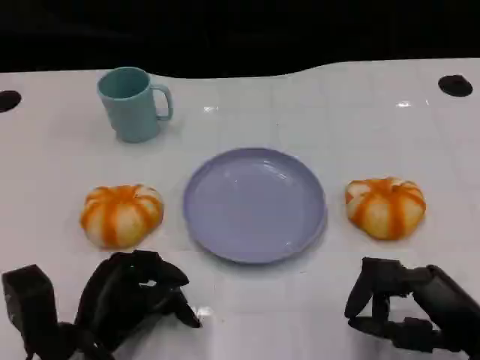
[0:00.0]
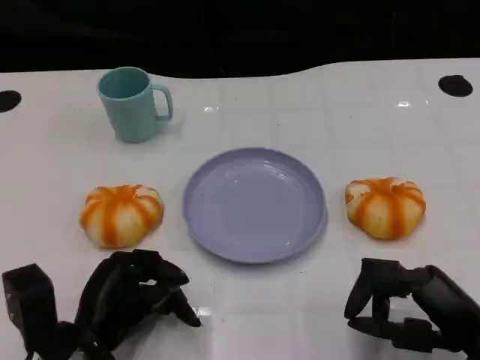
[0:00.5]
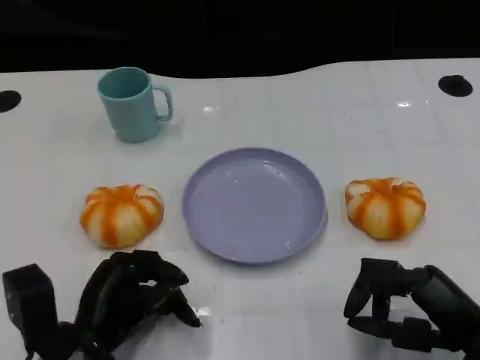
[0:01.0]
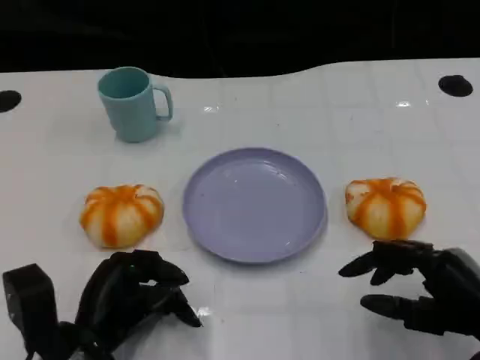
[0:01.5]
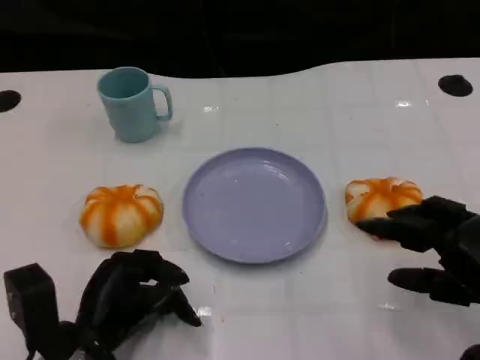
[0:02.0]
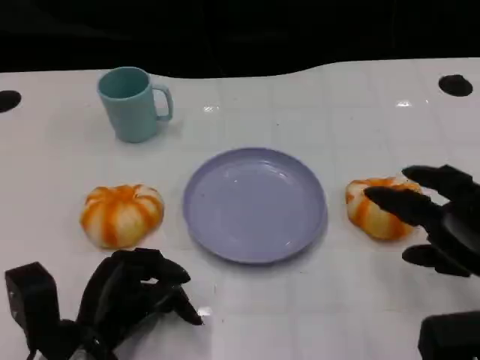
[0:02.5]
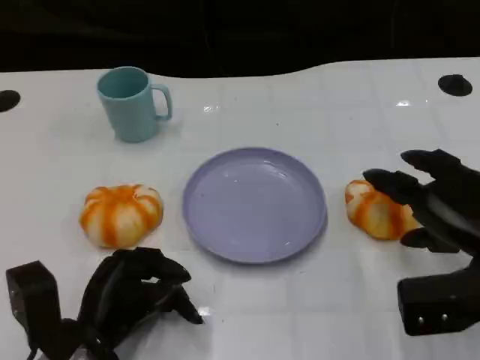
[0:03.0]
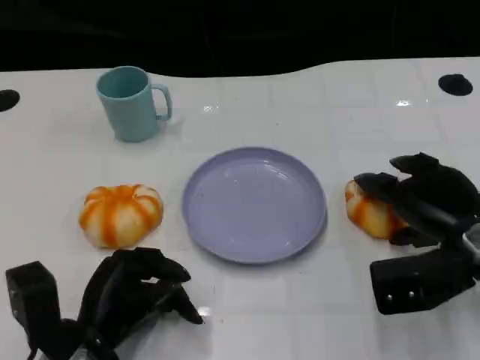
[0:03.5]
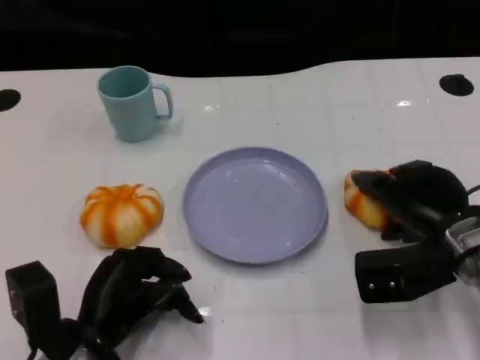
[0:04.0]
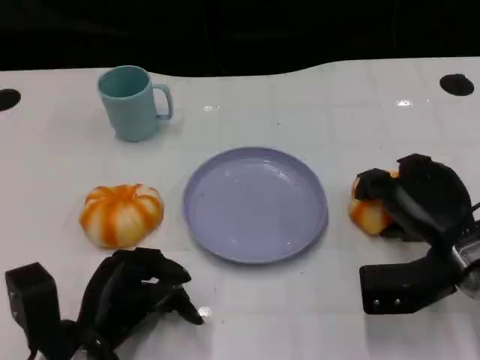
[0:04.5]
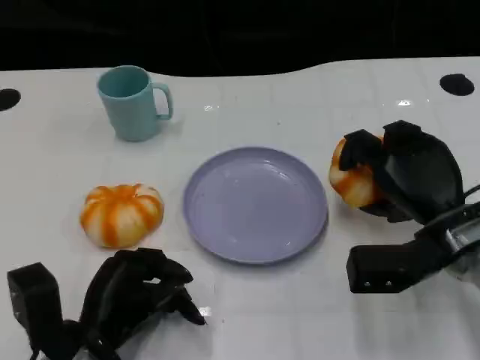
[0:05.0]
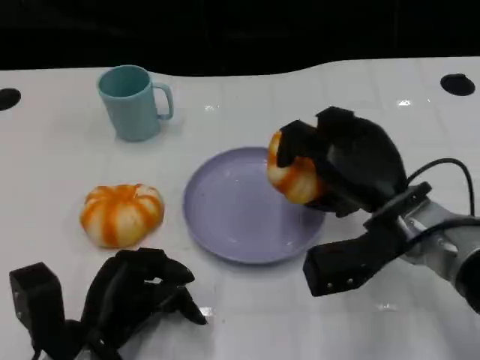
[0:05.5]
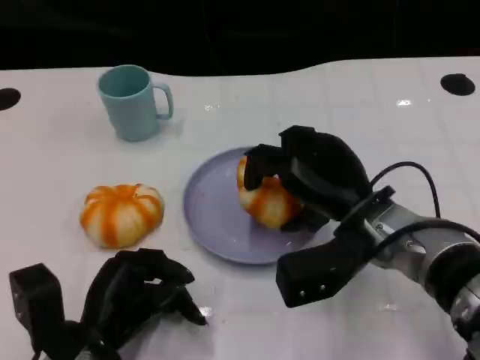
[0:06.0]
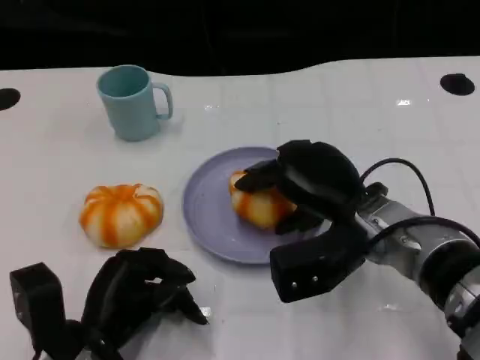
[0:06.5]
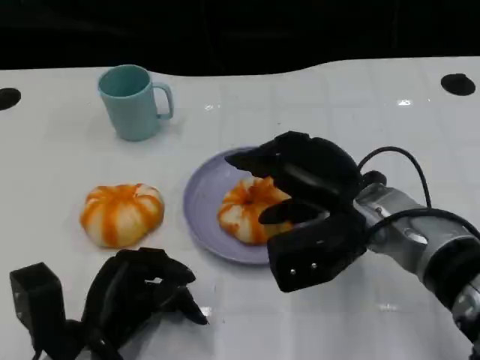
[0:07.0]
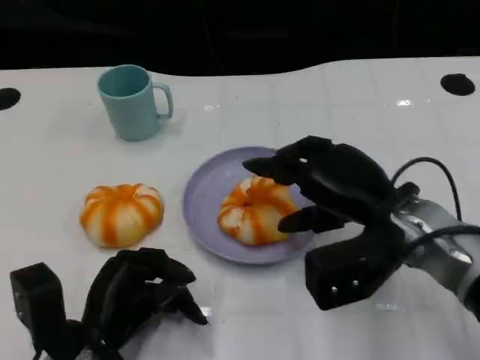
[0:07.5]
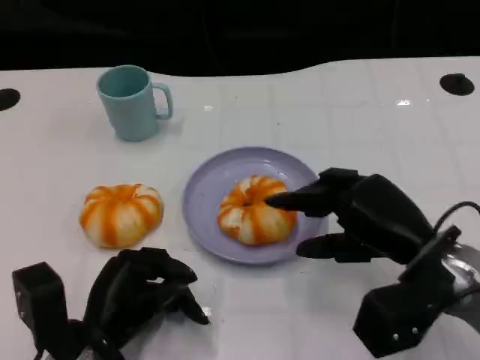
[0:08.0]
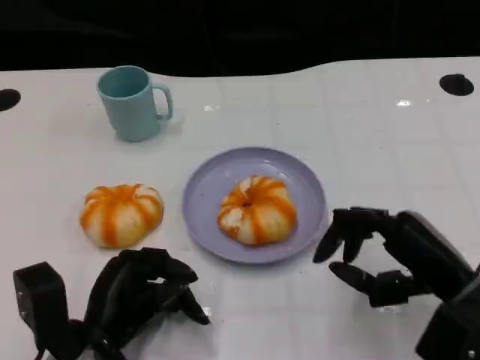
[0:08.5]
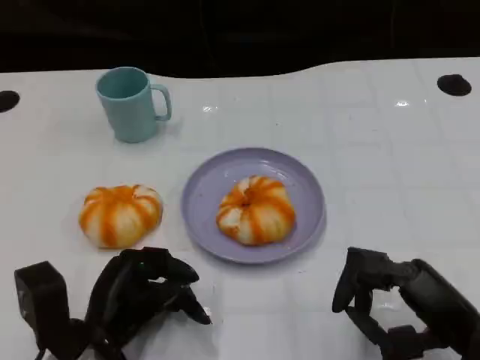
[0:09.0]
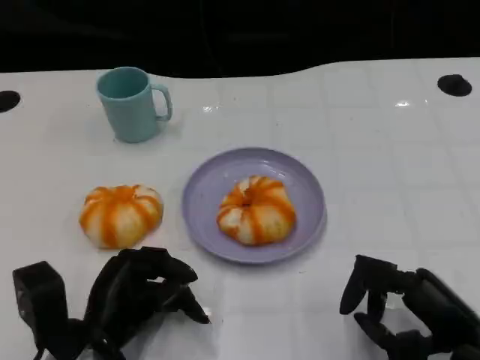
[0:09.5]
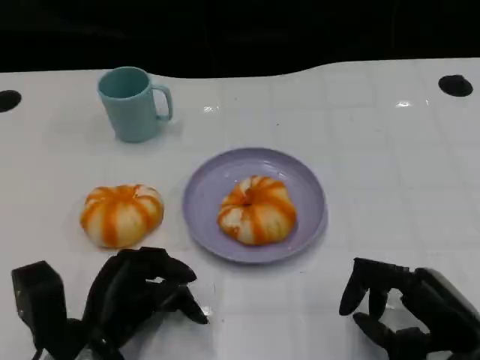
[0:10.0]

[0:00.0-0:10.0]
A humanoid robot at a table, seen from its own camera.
Task of the whole recording: Grasp the bread from the table and place it into the plate.
0:00.0 to 0:02.0: The right hand moves roughly 5 cm.
0:02.0 to 0:04.0: The right hand moves forward and to the left, some 10 cm.
0:04.0 to 0:06.0: The right hand goes about 10 cm to the left.
0:06.0 to 0:08.0: The right hand travels to the right by some 5 cm.
0:08.0 to 0:10.0: The right hand is displaced backward by roughly 5 cm.

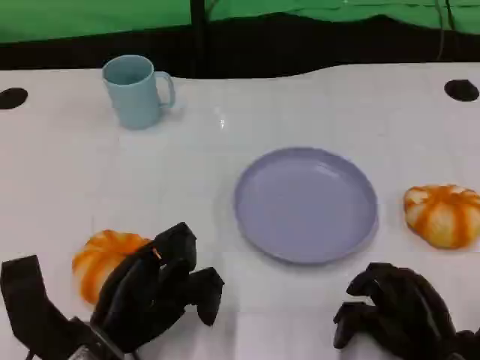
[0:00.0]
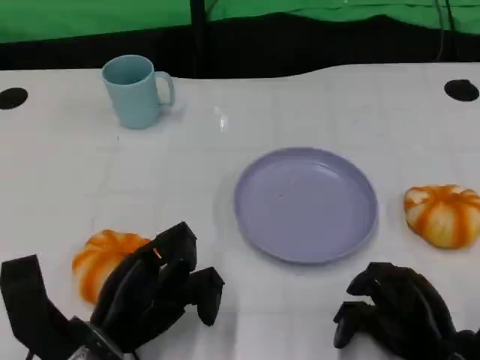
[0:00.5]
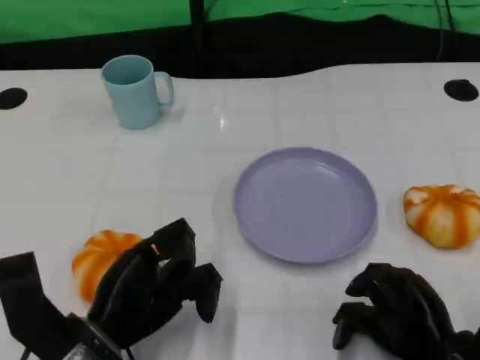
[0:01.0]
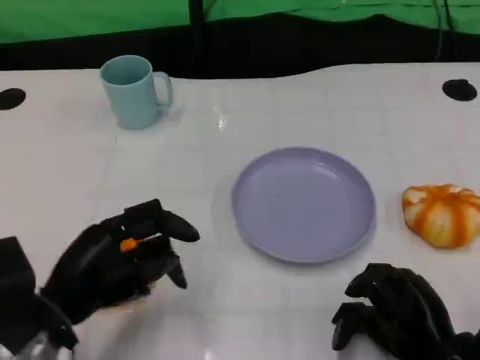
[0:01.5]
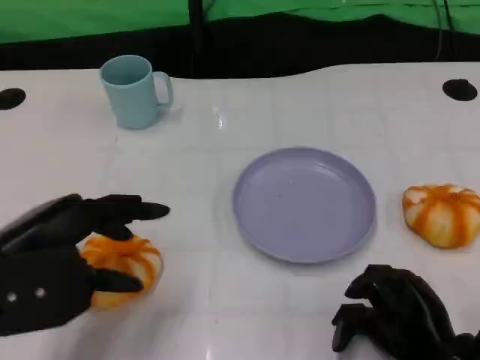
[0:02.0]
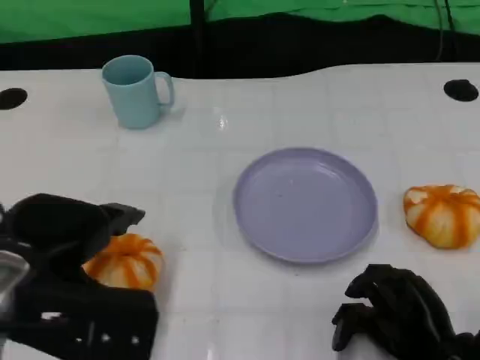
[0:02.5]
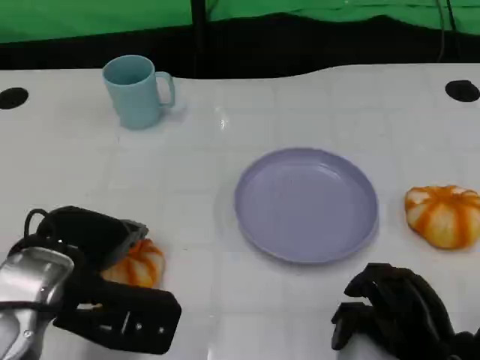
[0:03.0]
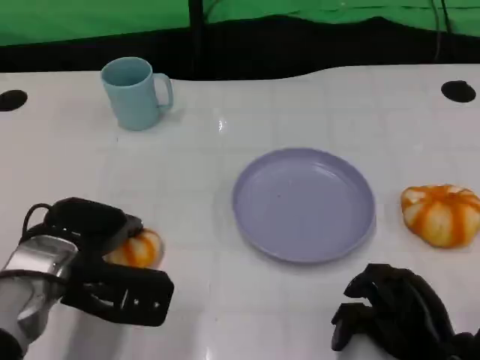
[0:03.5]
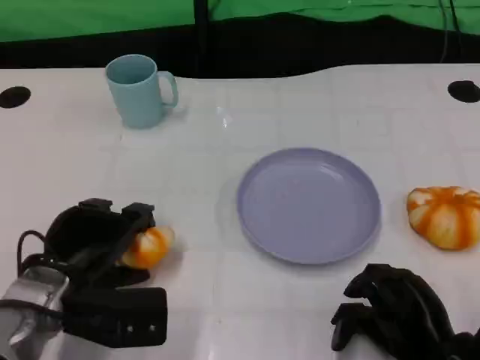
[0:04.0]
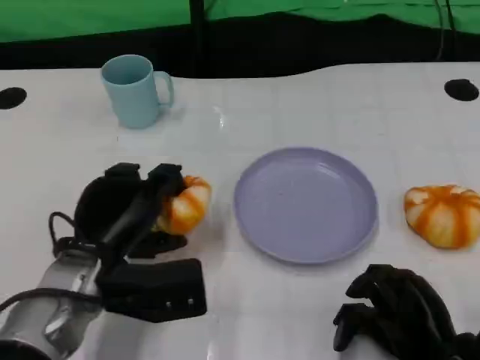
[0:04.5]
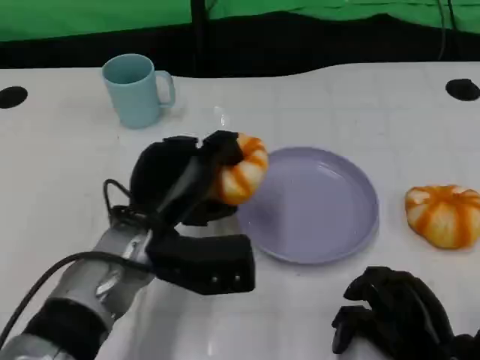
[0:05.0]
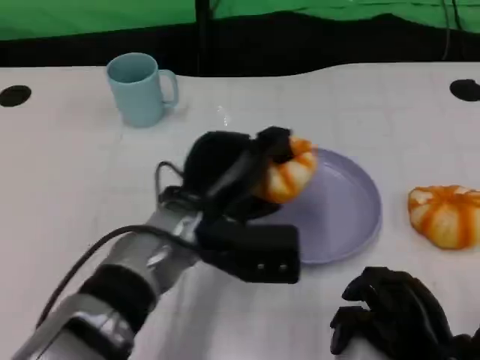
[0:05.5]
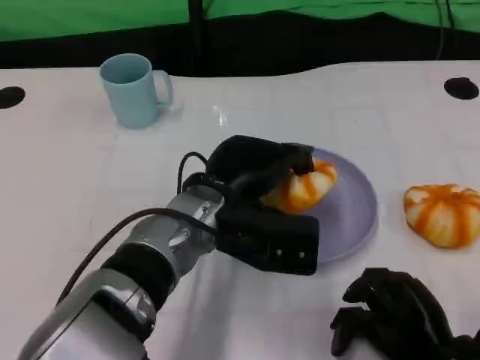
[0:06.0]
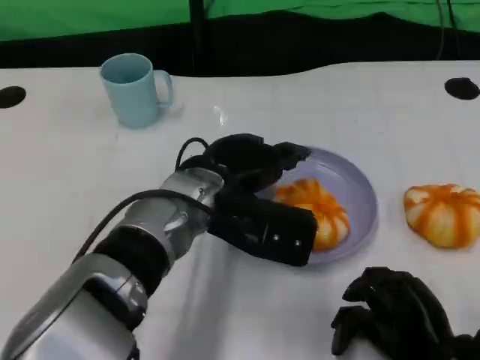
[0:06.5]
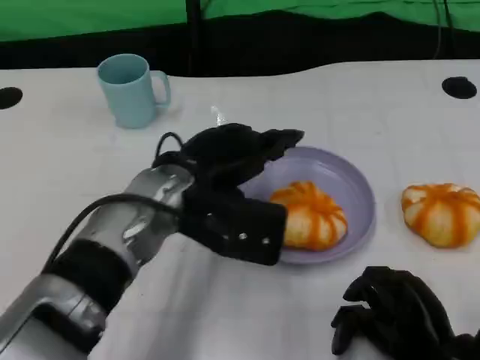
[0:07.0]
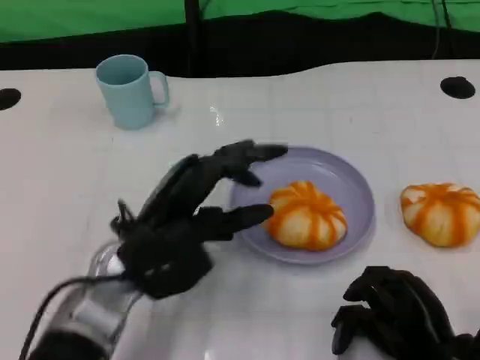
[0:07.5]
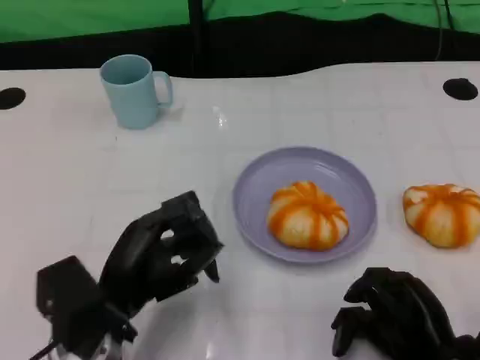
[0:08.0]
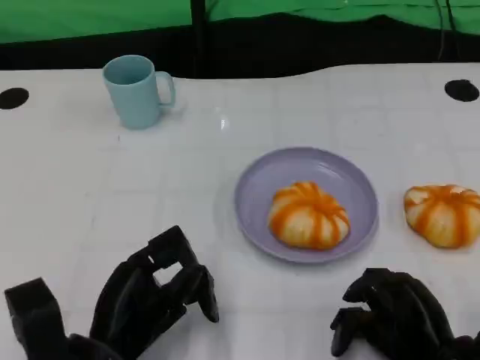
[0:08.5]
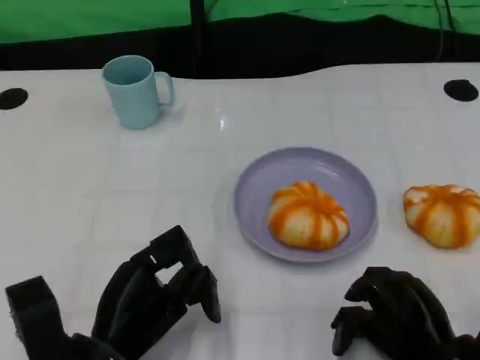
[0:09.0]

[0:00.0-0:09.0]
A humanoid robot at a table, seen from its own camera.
Task of the whole recording: Grasp the bread from the table and place it into the plate.
0:00.0 to 0:02.0: The left hand moves upward and to the left, some 15 cm.
0:02.0 to 0:04.5: The left hand moves downward, to the right and forward, roughly 15 cm.
0:04.5 to 0:07.0: The left hand travels to the right and upward by about 10 cm.
0:07.0 to 0:09.0: The left hand moves backward, downward and to the left, roughly 15 cm.

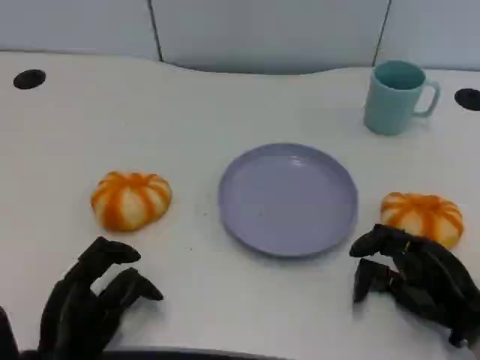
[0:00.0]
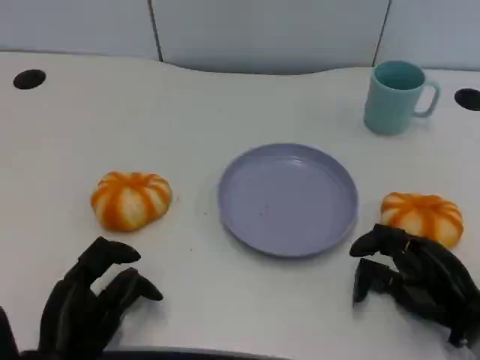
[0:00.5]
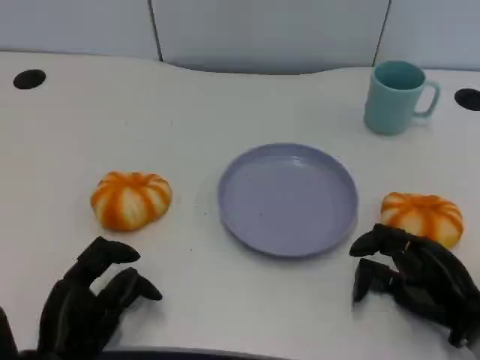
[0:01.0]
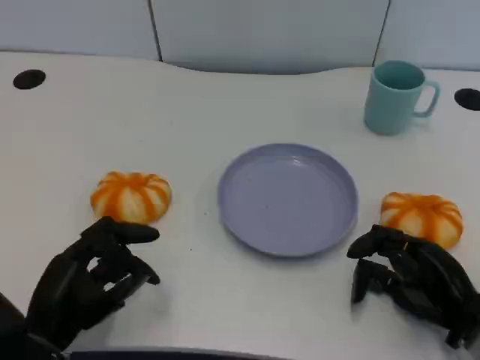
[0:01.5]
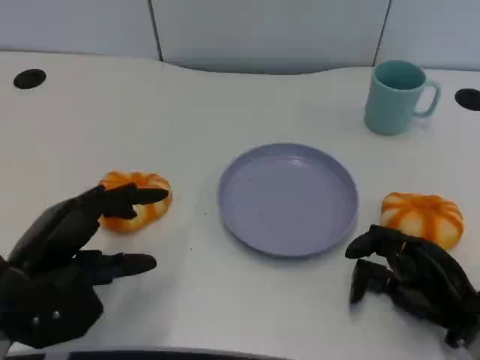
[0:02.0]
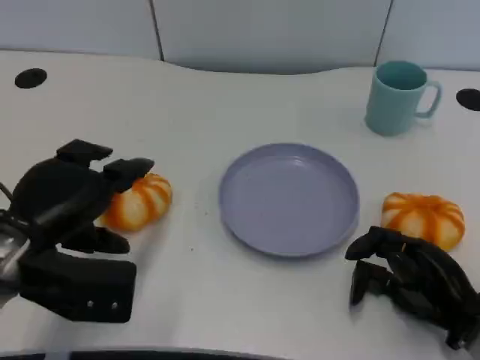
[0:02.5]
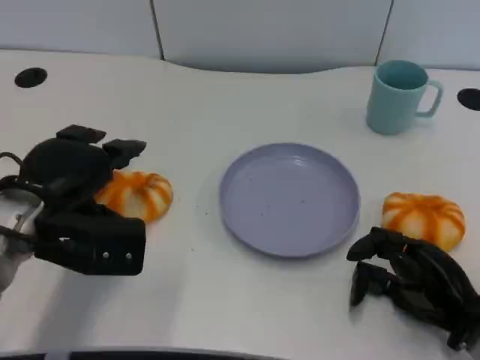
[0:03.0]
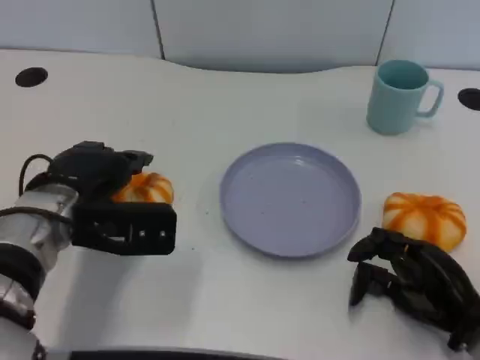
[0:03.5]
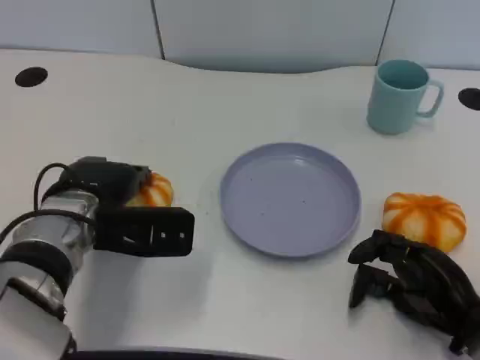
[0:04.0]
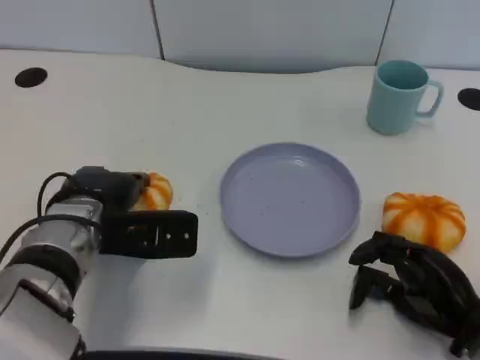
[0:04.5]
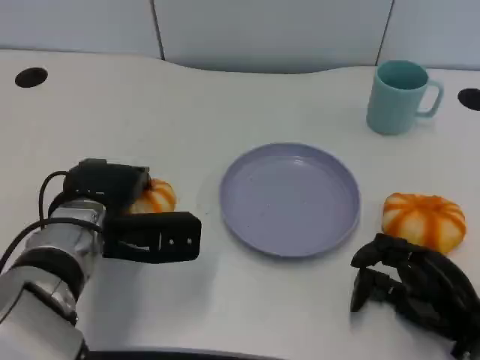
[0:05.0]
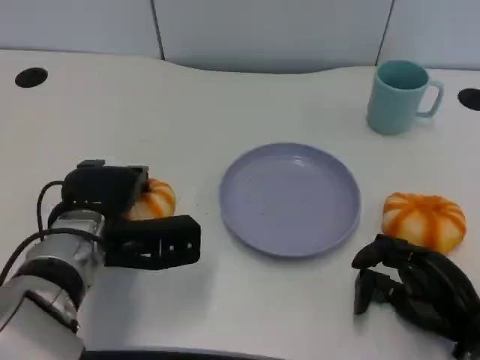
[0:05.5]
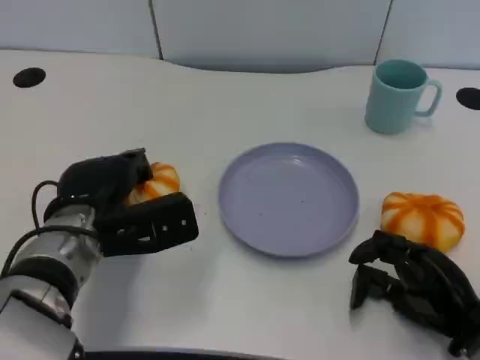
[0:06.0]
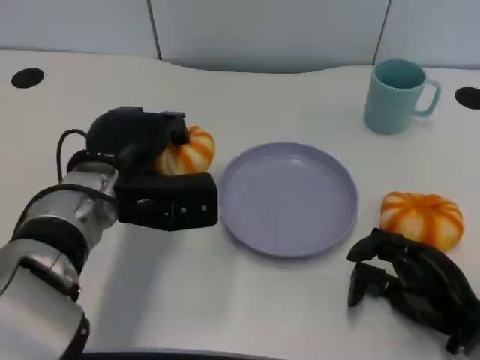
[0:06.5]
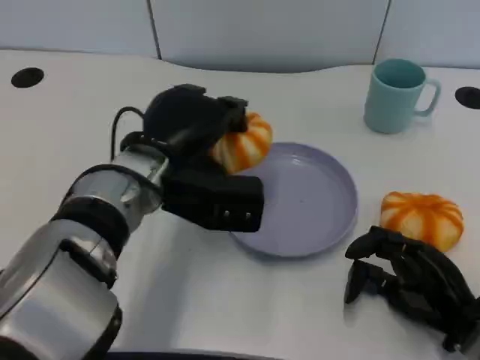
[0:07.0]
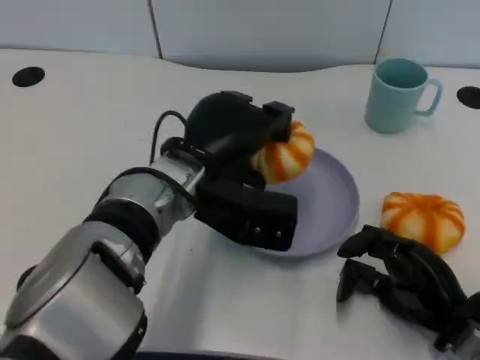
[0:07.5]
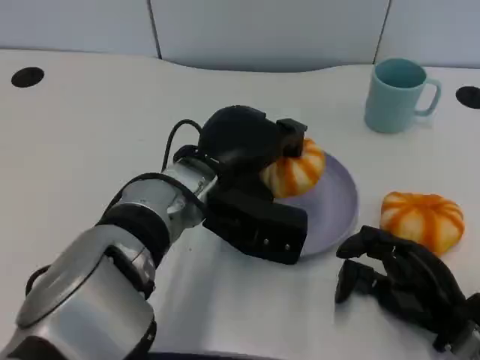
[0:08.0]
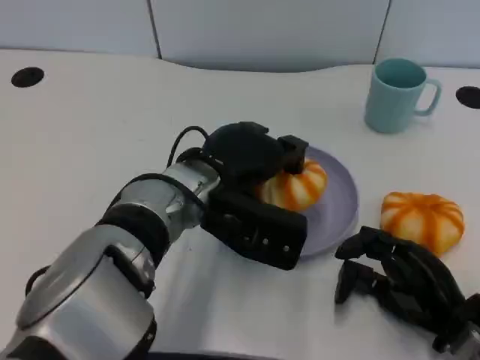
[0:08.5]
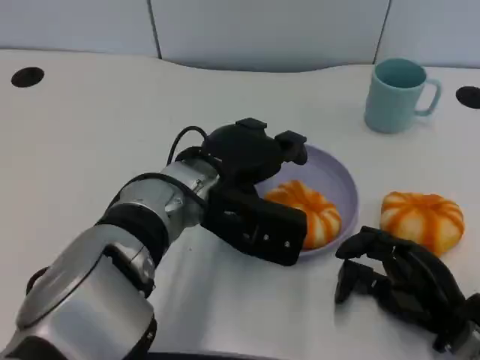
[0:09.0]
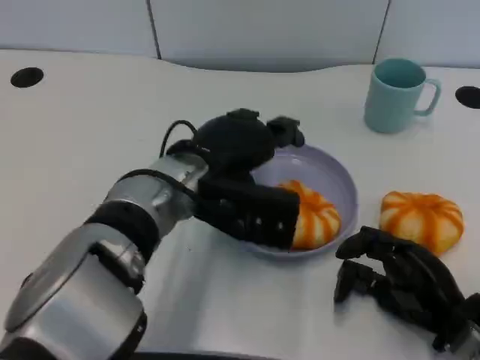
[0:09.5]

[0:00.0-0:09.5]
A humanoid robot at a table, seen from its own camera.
Task of the whole recording: Grasp the bread from the table and place it into the plate.
0:00.0 to 0:02.0: The left hand goes roughly 10 cm upward.
0:02.0 to 0:04.0: The left hand is displaced forward and to the right by about 10 cm.
0:04.0 to 0:05.5: The hands move only a little.
0:05.5 to 0:07.5: The left hand goes approximately 10 cm to the right and upward.
0:07.5 to 0:09.5: There are only small adjustments of the hands.
